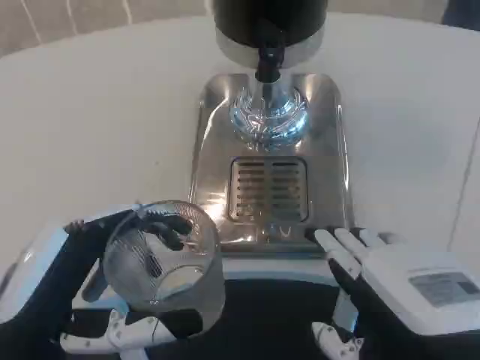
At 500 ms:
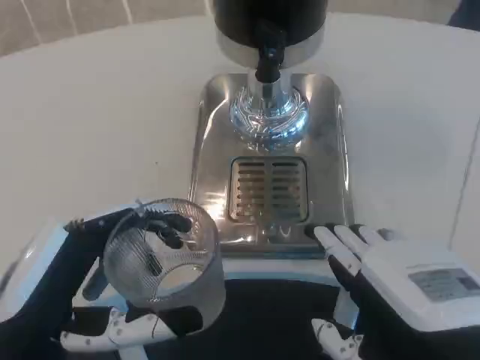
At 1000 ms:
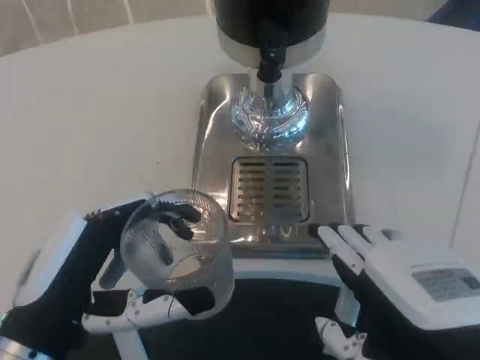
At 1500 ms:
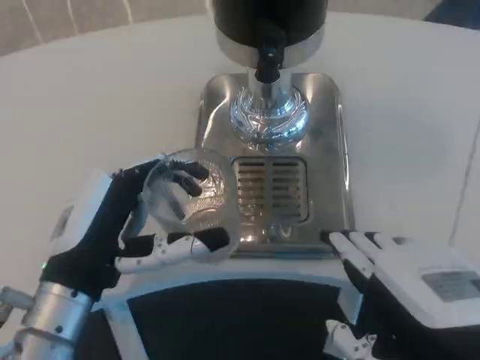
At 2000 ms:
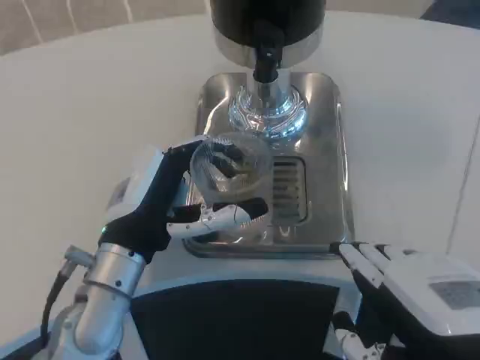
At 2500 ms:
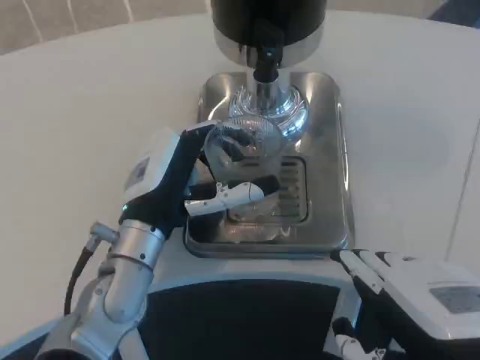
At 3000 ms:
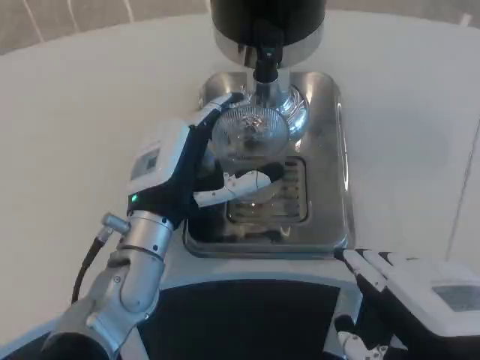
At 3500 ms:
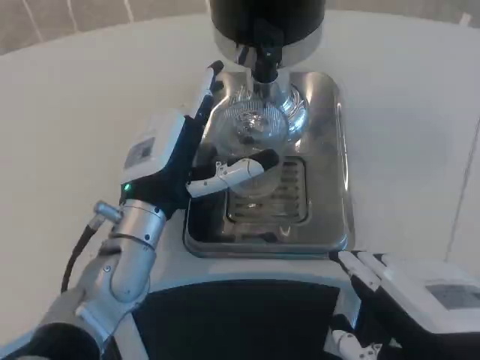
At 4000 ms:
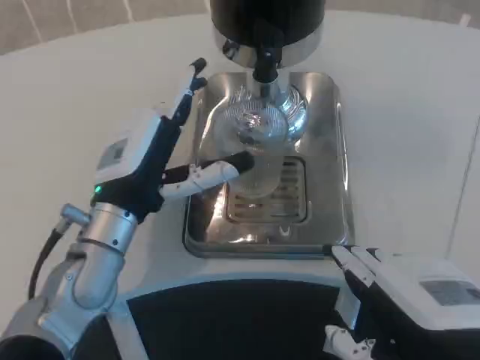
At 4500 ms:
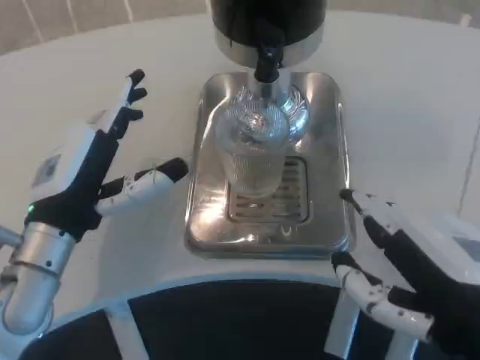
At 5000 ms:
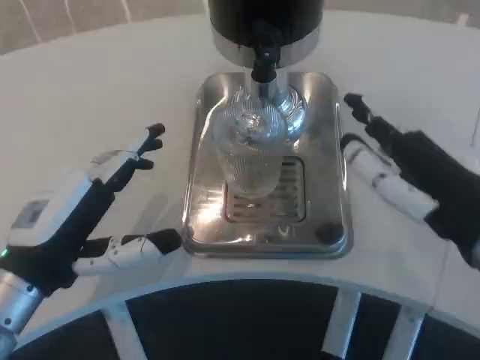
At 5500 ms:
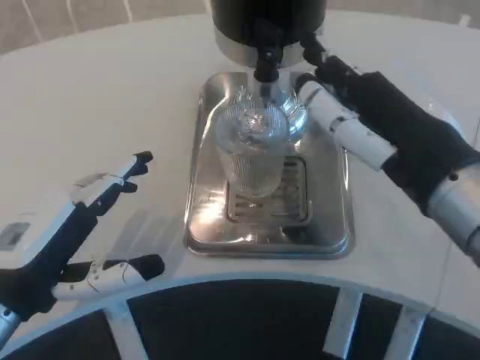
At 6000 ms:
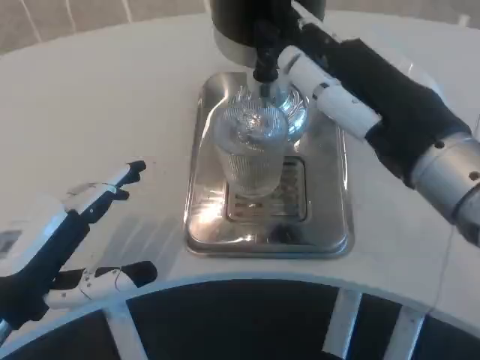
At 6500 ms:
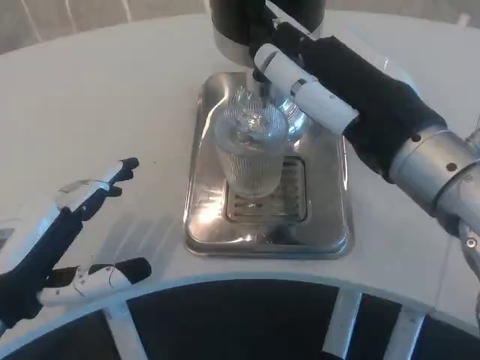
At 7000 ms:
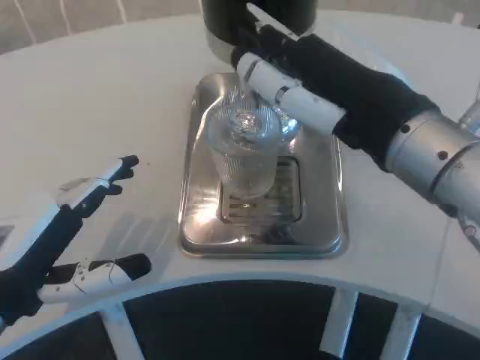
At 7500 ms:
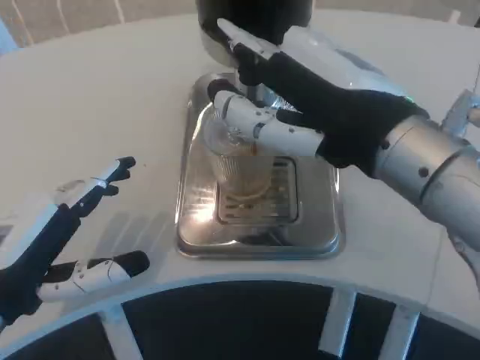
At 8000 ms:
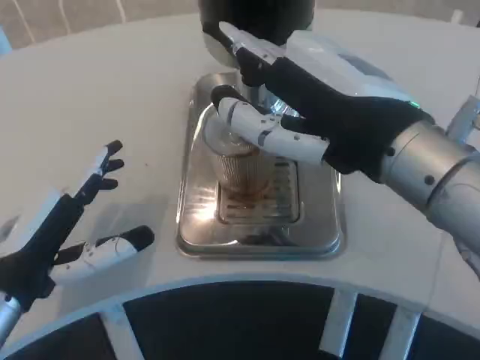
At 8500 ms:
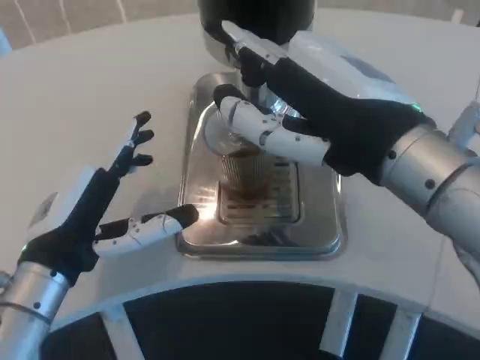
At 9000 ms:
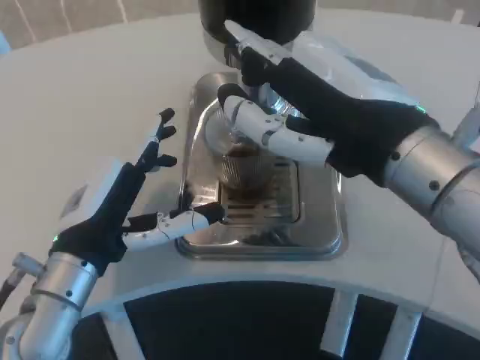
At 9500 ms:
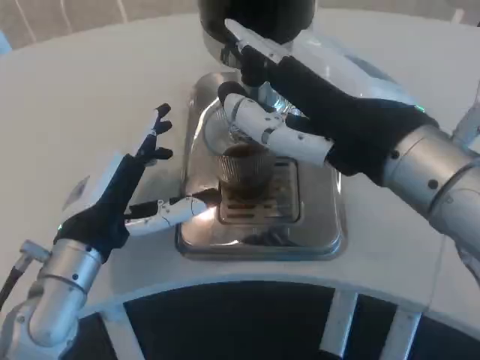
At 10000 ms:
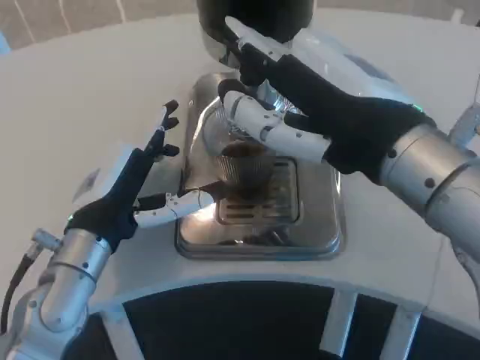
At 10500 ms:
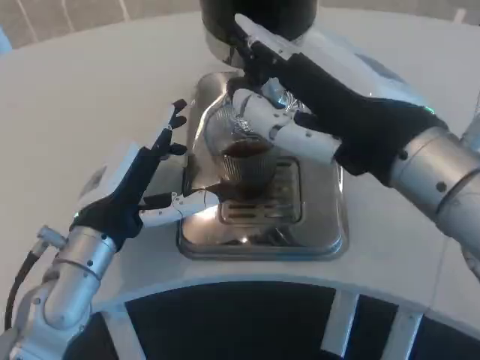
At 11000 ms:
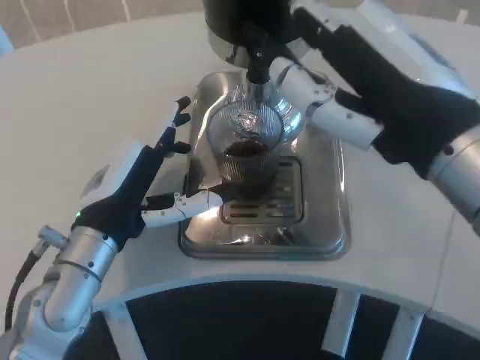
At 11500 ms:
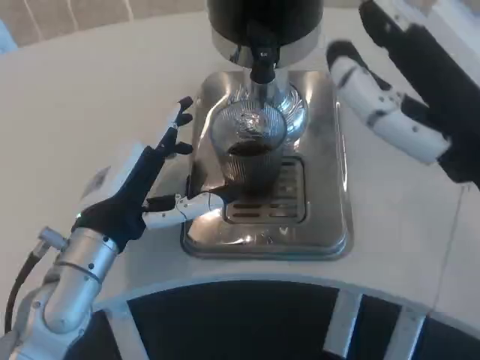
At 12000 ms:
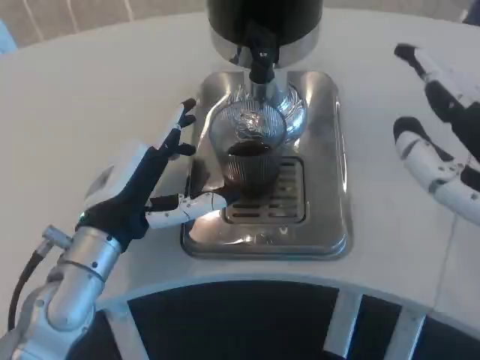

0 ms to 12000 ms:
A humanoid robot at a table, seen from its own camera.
Task of the whole recording: Grasp the cup under the faucet to collect the drink, then remove the cup.
0 ms to 2000 ms: The left hand is displaced forward and to the right by approximately 15 cm.
2000 ms to 4000 ms: The hands move only a little.
4000 ms to 6000 ms: The right hand is displaced forward and upward by some 10 cm. Meanwhile the left hand goes about 15 cm backward and to the left.
8000 ms to 10000 ms: The left hand goes about 10 cm forward and to the right.
10000 ms to 12000 ms: The right hand goes approximately 10 cm to the right and backward.

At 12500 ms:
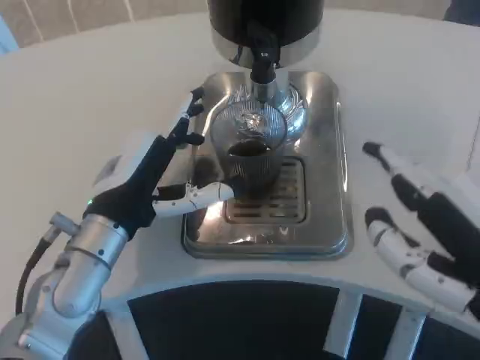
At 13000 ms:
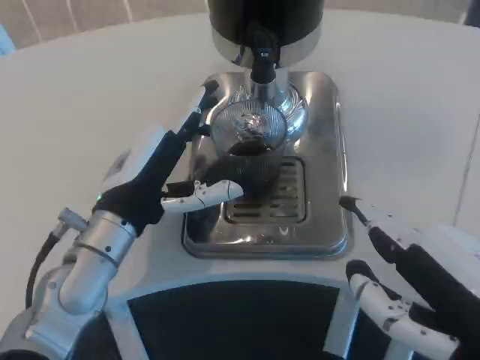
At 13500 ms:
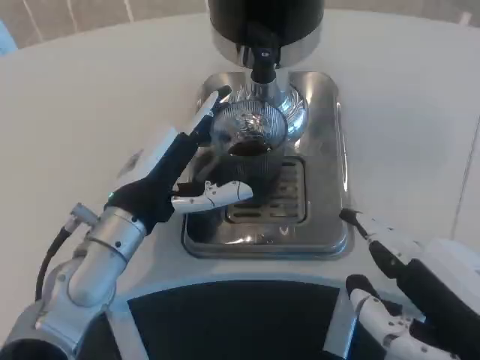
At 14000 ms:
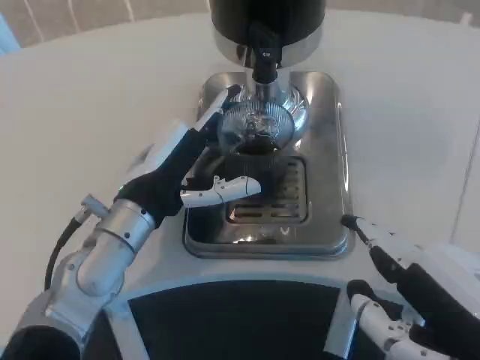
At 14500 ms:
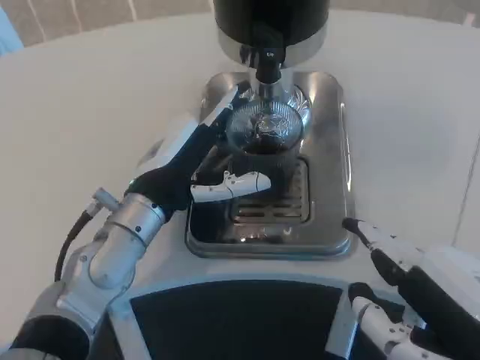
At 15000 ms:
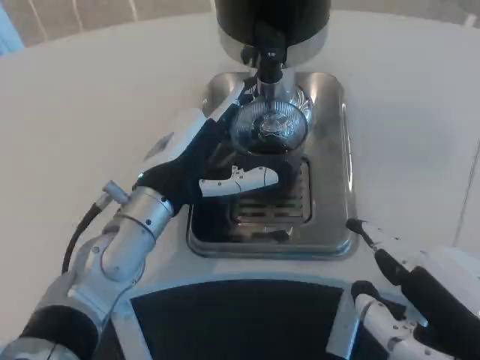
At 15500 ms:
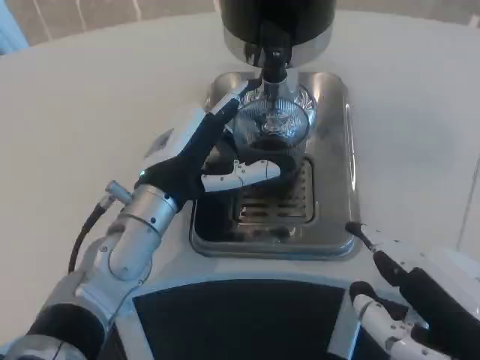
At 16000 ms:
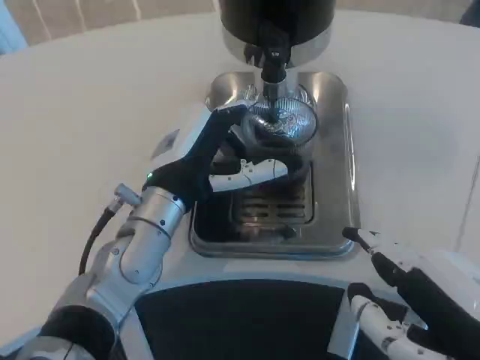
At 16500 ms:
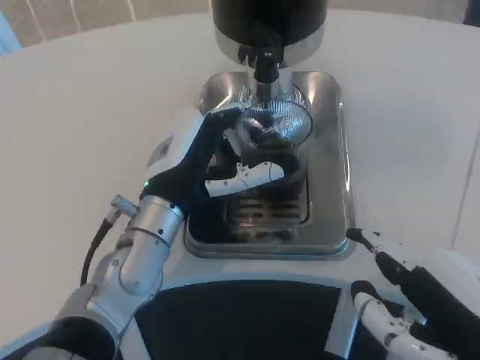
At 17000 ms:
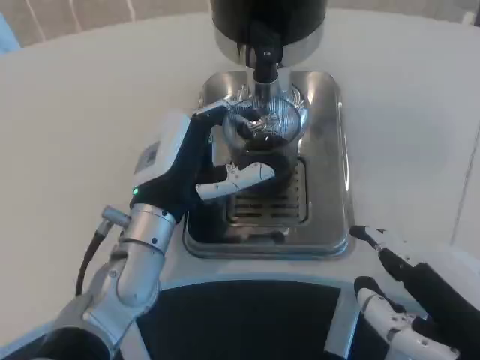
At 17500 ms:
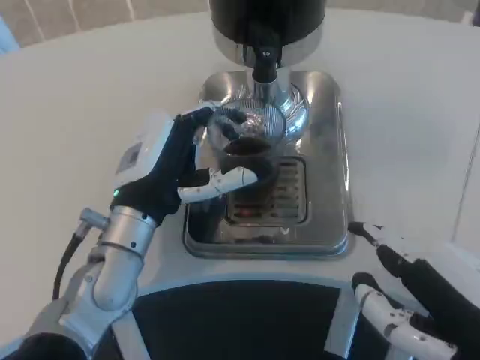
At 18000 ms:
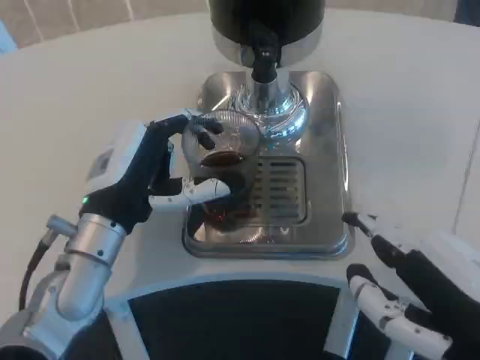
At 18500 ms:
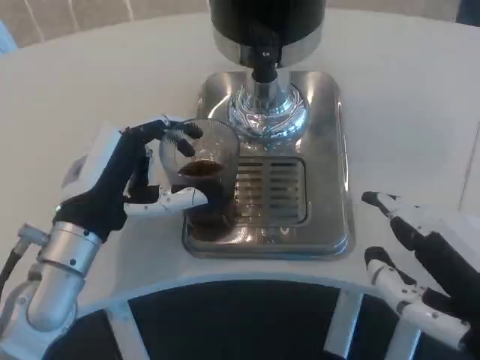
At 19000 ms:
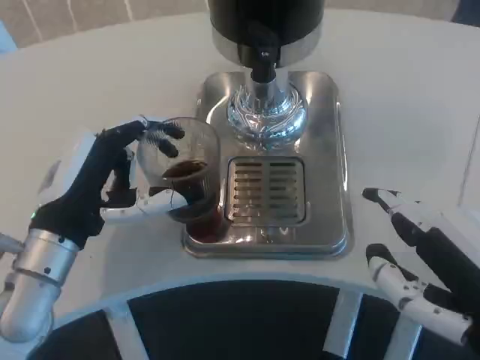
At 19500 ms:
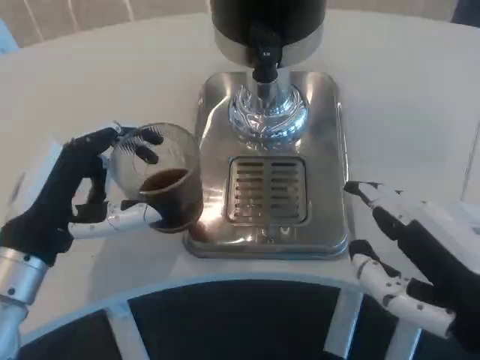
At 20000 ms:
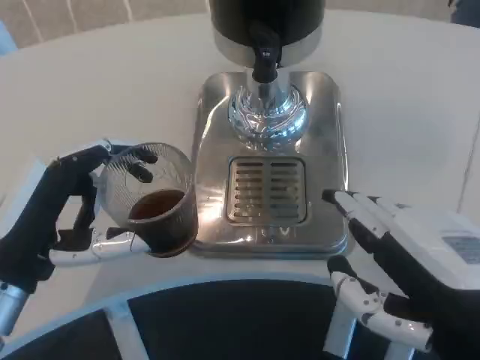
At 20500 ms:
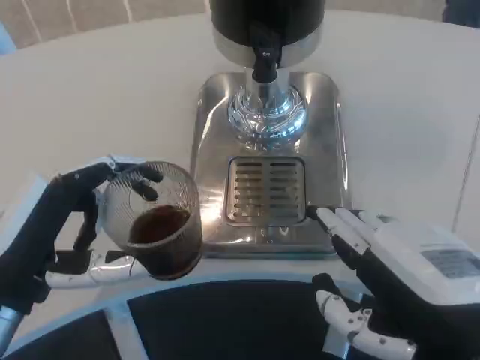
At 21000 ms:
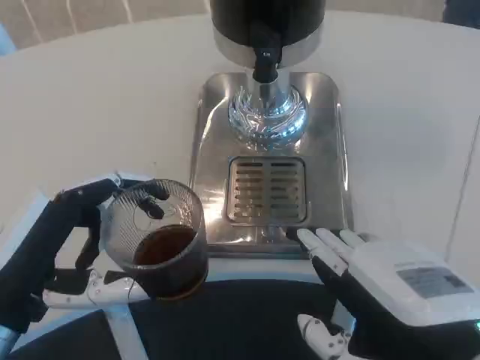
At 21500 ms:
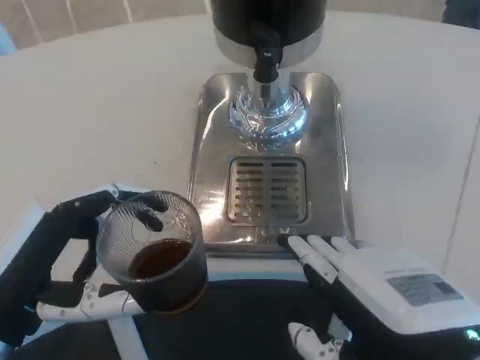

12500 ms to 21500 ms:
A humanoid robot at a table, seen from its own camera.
Task of the whole recording: Grasp the cup under the faucet to collect the drink, then remove the cup.
14500 ms to 17000 ms: There are only small adjustments of the hands.
17000 ms to 19500 ms: The left hand goes roughly 15 cm to the left and backward.
19500 ms to 21500 ms: The left hand shifts some 5 cm backward.

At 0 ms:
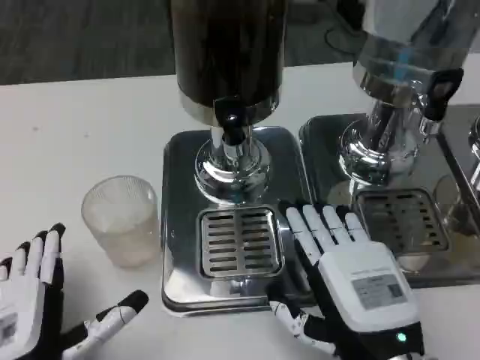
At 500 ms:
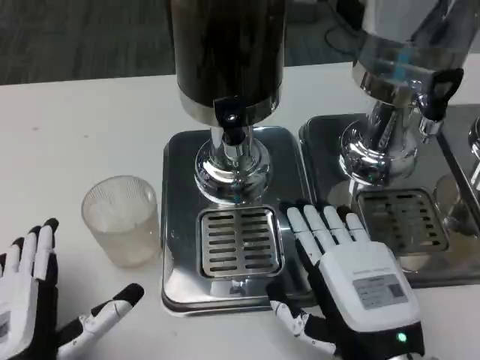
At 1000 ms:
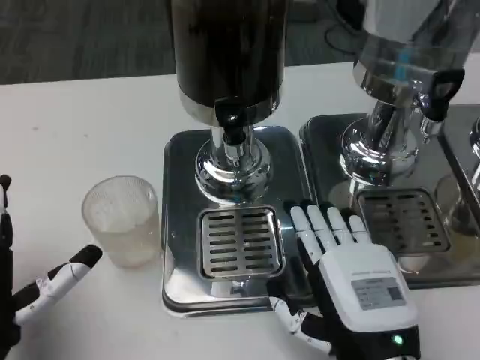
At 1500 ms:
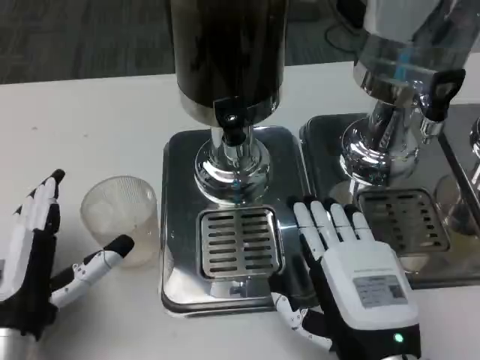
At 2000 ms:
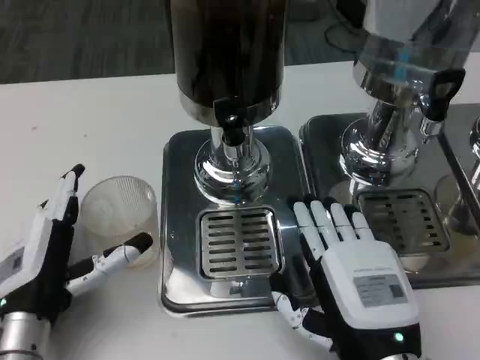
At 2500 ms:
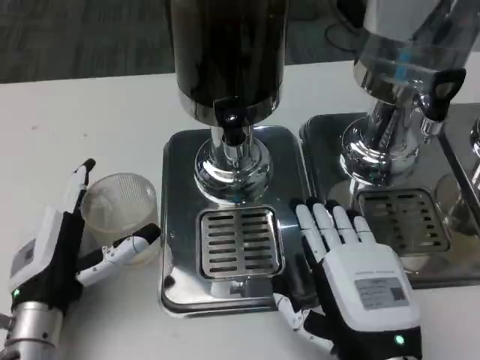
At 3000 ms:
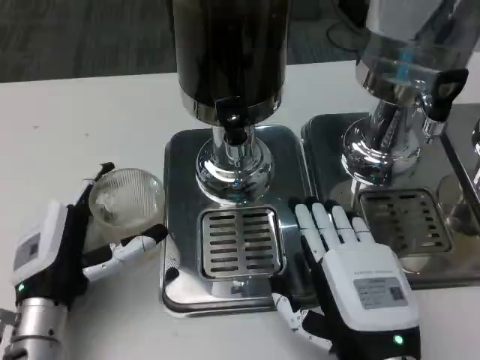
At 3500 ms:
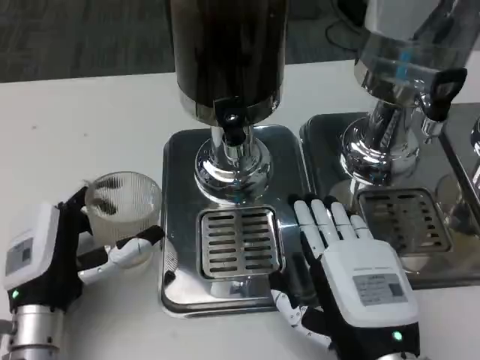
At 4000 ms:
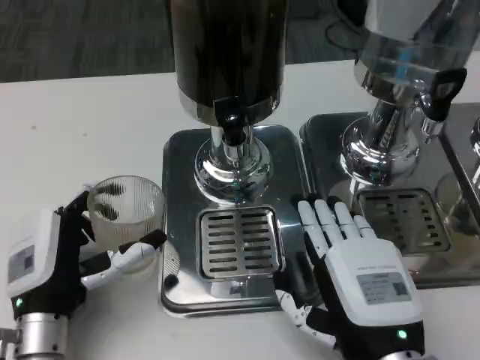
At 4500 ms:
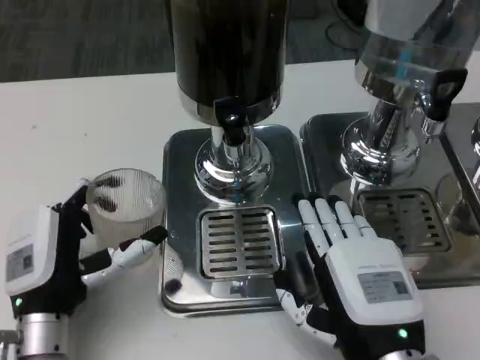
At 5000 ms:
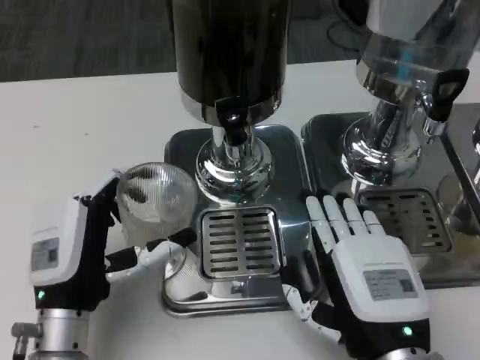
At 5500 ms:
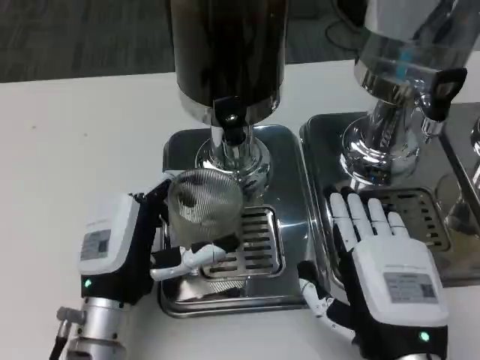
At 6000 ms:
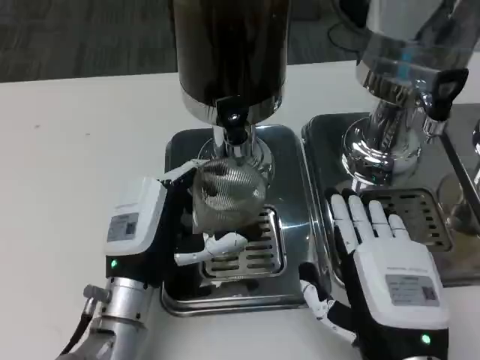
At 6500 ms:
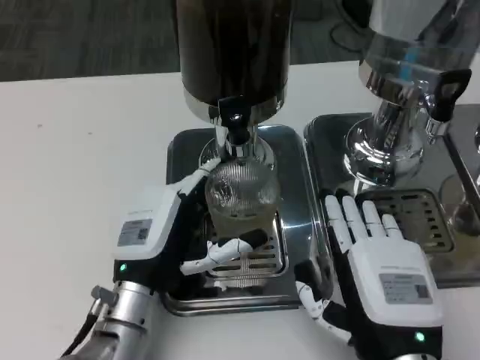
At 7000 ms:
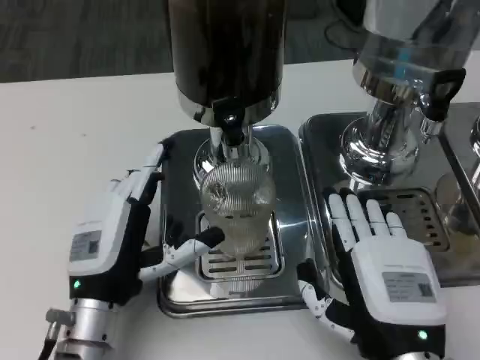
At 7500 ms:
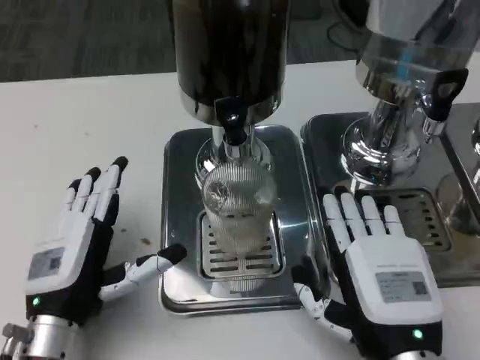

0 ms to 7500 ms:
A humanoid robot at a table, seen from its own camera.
Task of the whole recording: Grasp the cup under the faucet to collect the drink, then remove the cup.
0 ms to 2000 ms: The left hand moves forward, some 10 cm.
2000 ms to 4000 ms: The hands stay close to where they were, moving slightly.
4000 ms to 5500 ms: The left hand shifts about 5 cm to the right.
5500 ms to 7500 ms: The left hand shifts by some 5 cm.
